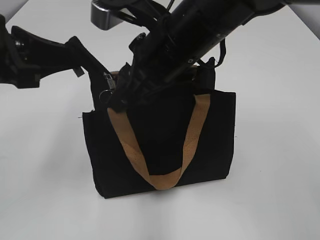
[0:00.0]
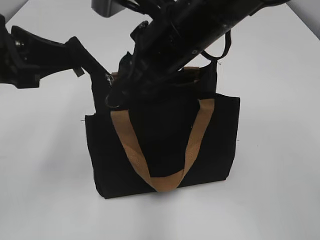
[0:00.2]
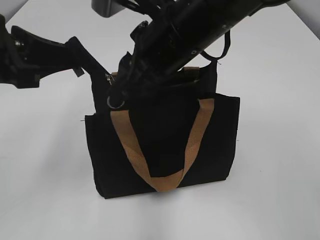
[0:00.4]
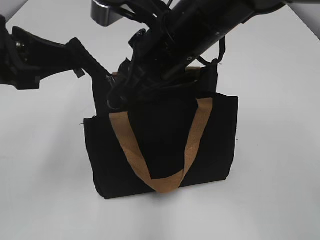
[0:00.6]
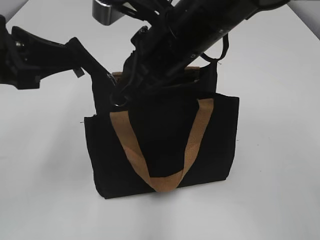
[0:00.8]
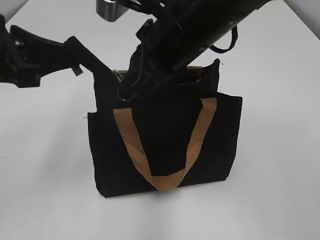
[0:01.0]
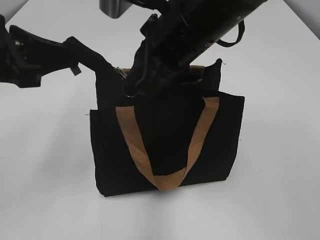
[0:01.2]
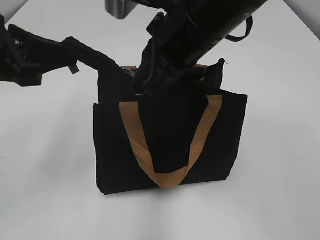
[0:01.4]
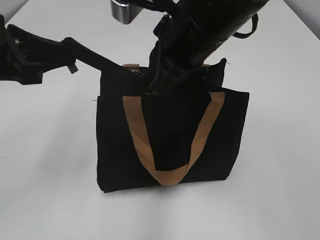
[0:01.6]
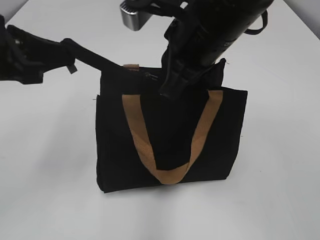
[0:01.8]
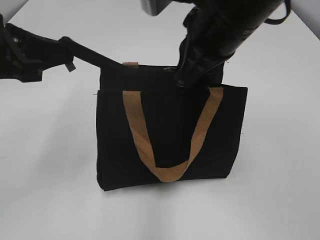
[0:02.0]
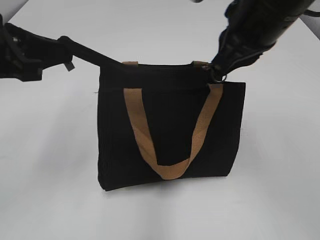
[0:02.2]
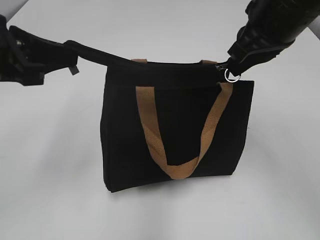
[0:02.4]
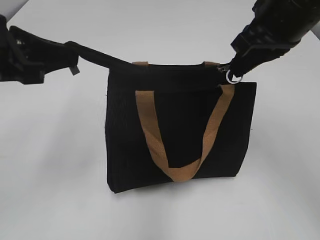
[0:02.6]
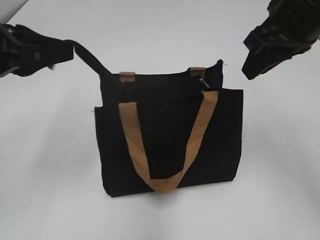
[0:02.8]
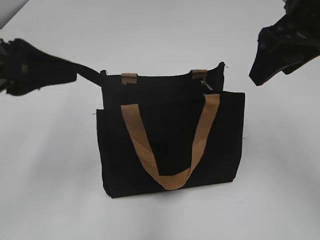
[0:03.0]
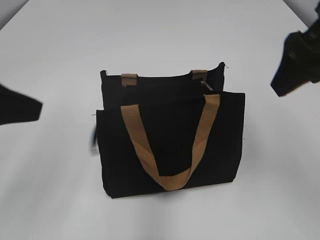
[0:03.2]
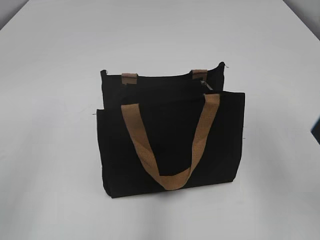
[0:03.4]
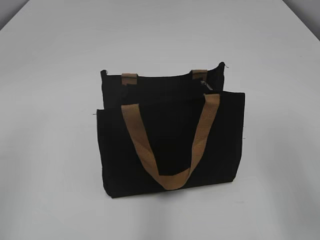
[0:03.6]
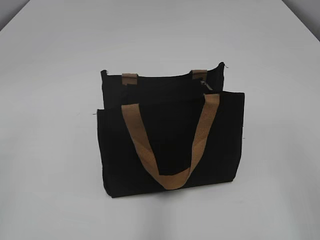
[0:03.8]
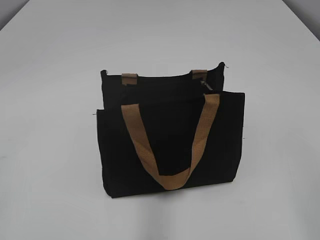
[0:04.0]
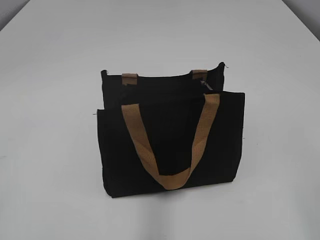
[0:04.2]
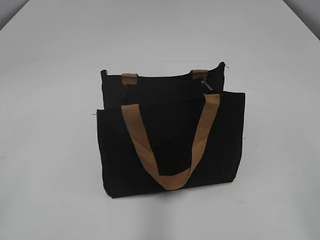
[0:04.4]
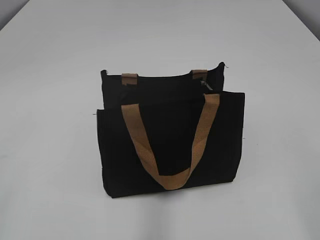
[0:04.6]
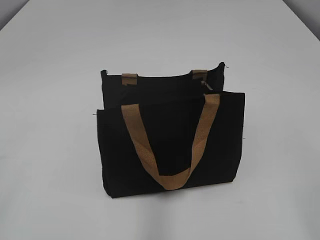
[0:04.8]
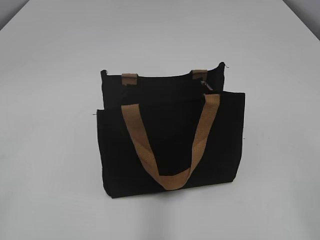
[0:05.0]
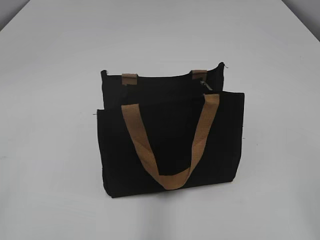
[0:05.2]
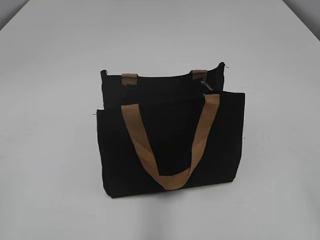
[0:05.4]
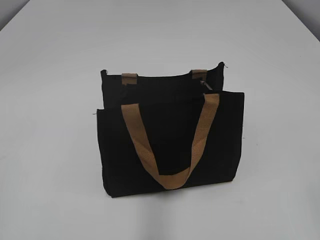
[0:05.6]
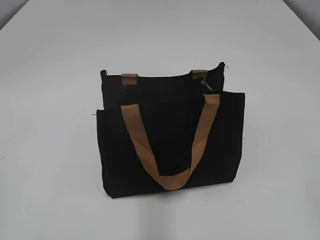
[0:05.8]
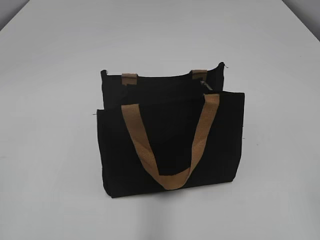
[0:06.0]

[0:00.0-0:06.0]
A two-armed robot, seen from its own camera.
Step, 0:00.0 to 0:02.6: Zip up the bag with your right hand.
Step, 0:02.8 to 0:03.0: Grab the zipper with your left hand.
0:00.0 to 0:01.6: The right gripper closes its fingers.
0:01.6 to 0:03.0: The right gripper goes some 15 cm to the right, and opens its fingers, while the left gripper opens.
0:03.0 to 0:04.4: The left gripper travels backward and to the left by some 25 cm; the right gripper travels backward by some 25 cm.
